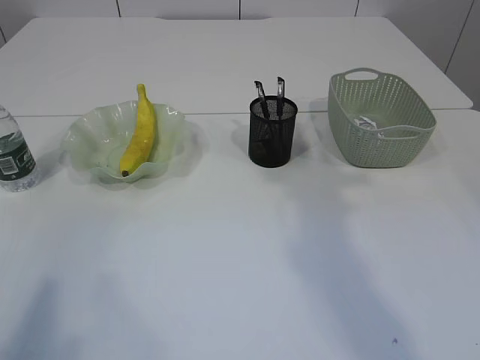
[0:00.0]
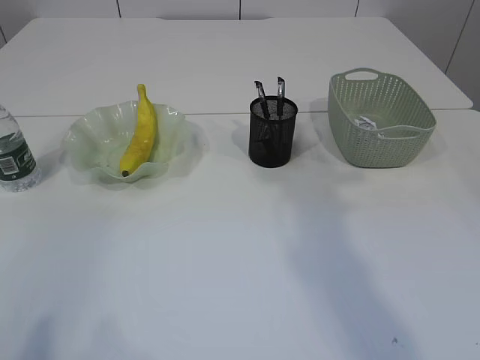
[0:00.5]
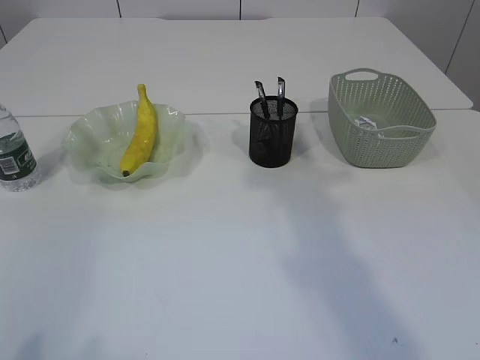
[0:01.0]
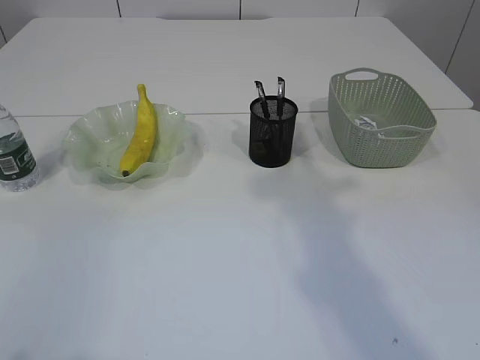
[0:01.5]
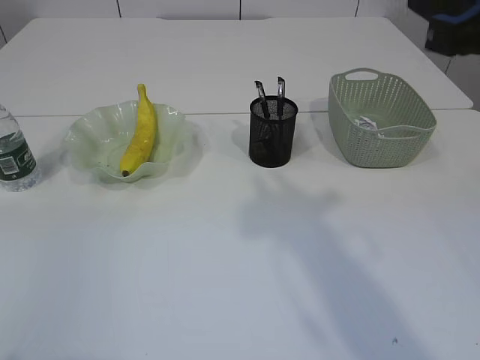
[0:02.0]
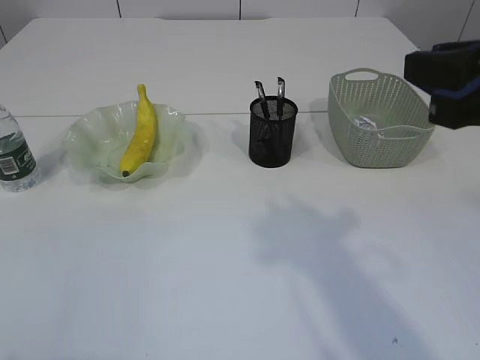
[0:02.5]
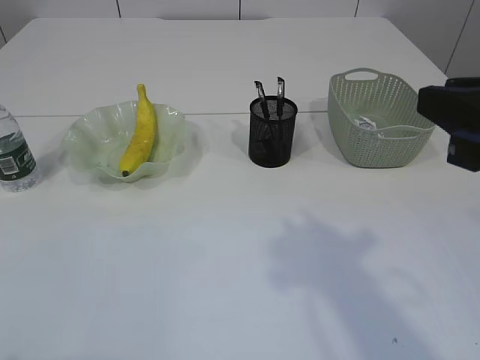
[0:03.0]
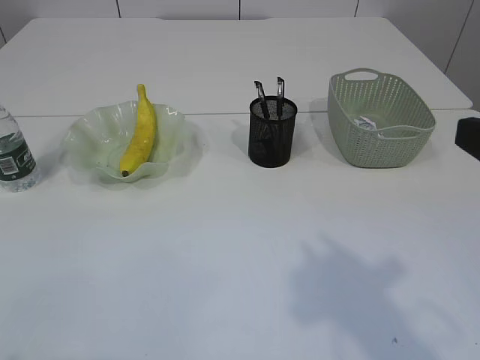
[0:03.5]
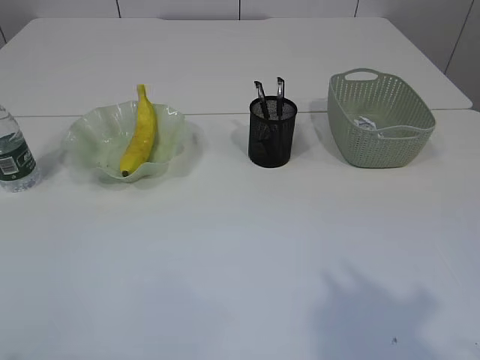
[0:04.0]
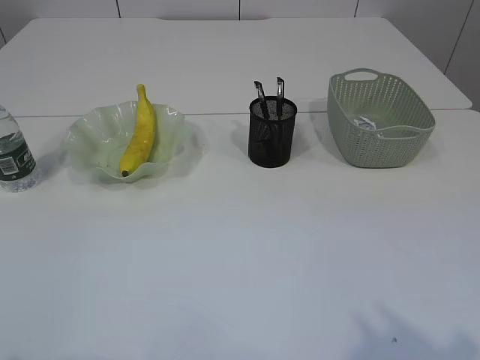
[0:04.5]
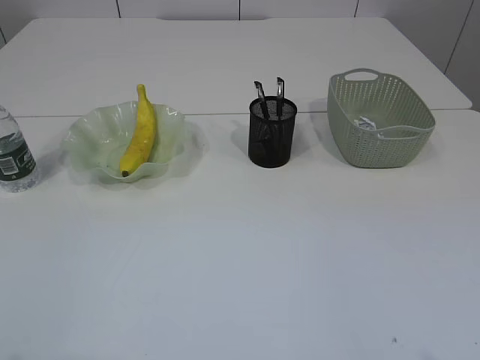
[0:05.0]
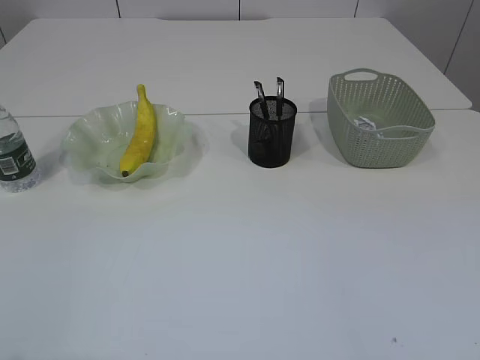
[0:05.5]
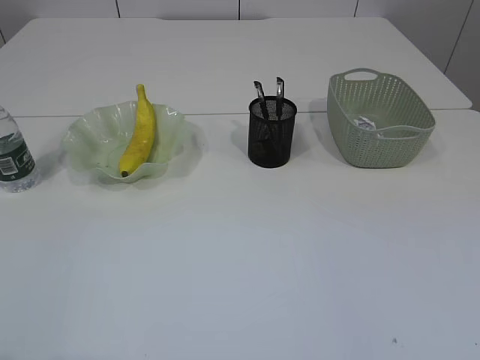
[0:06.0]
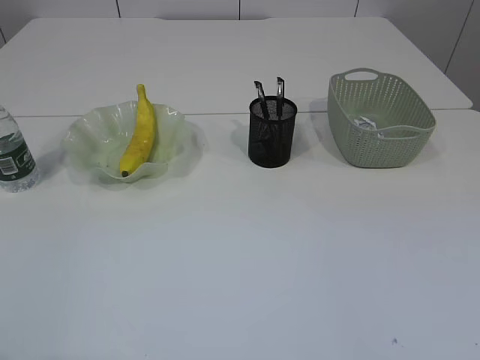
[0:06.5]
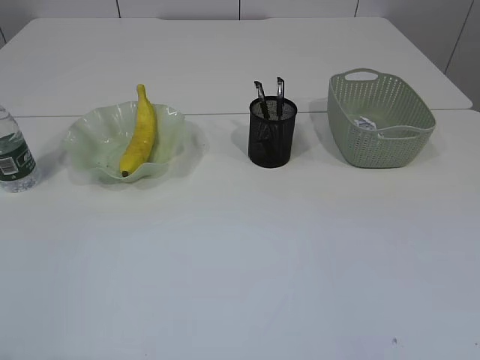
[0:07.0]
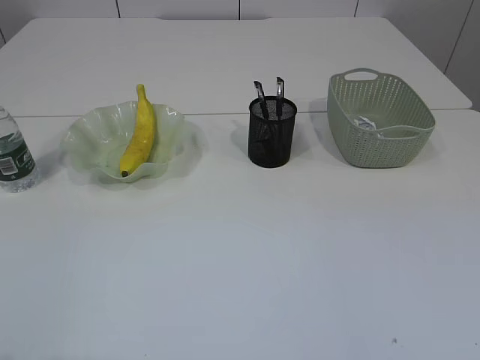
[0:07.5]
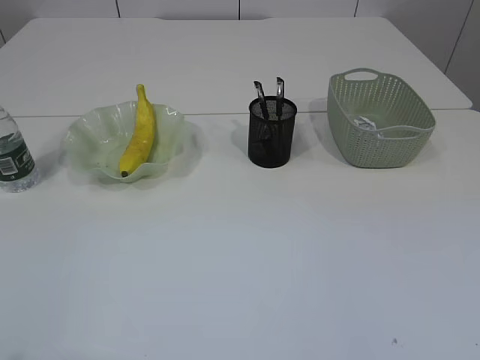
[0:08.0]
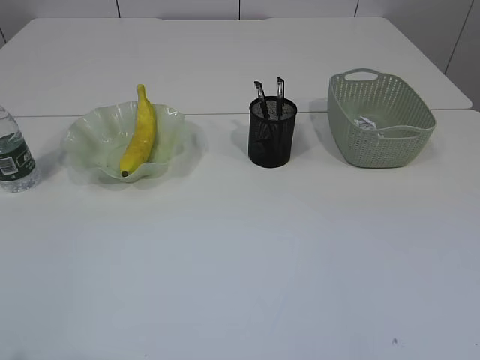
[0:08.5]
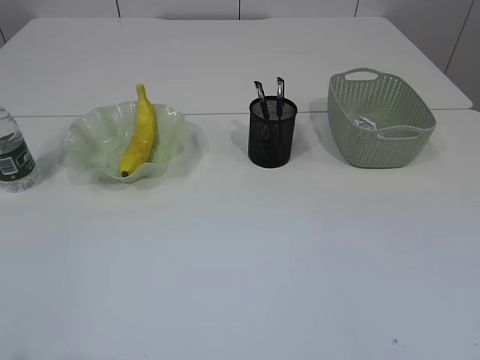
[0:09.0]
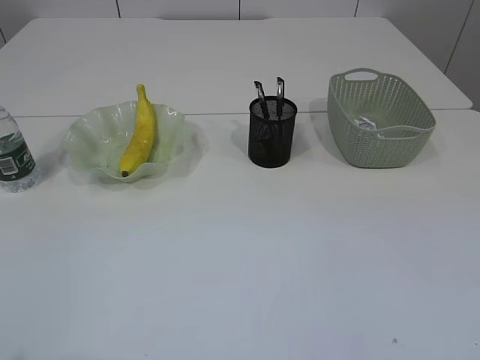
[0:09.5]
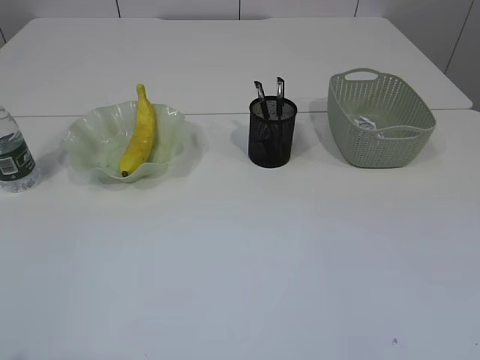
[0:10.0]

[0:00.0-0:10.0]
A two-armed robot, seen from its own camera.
0:00.0 to 0:02.0: The right gripper travels backward by approximately 5 cm; the left gripper shifts roughly 5 cm downward.
0:02.0 to 0:04.0: The right gripper moves backward, some 10 cm.
0:04.0 to 0:06.0: The right gripper goes about 10 cm backward.
0:08.0 to 0:10.0: Neither gripper changes place.

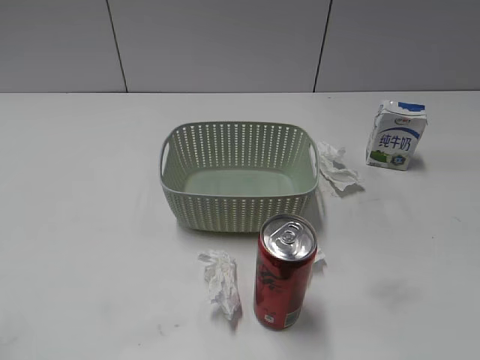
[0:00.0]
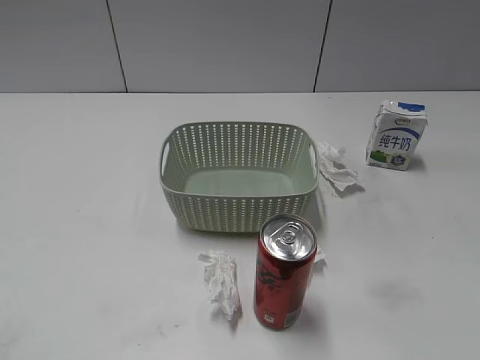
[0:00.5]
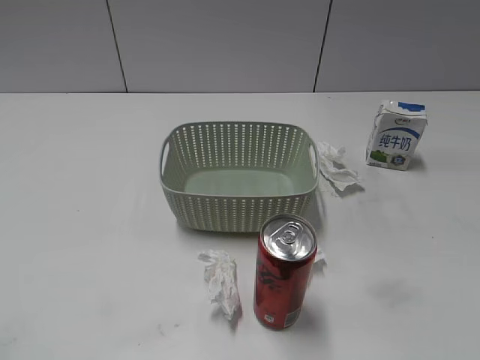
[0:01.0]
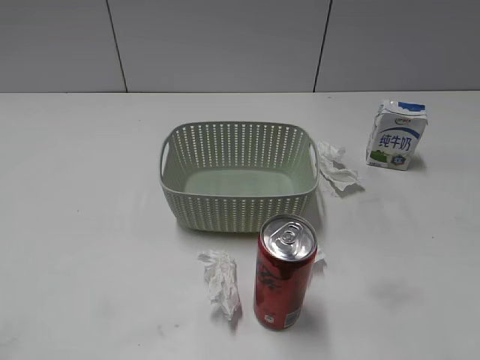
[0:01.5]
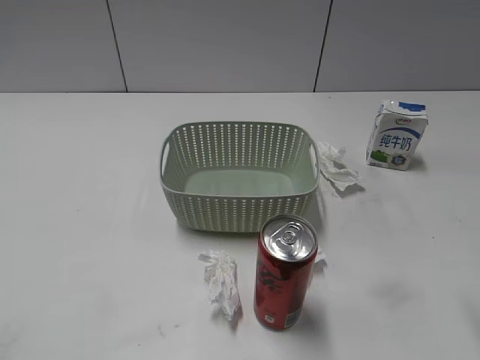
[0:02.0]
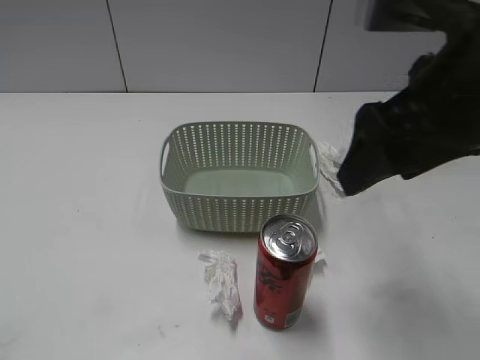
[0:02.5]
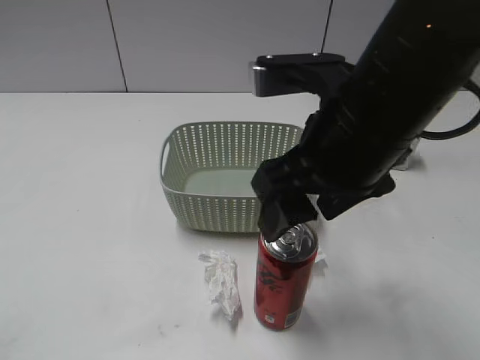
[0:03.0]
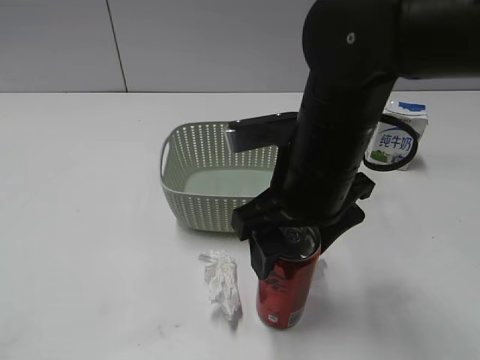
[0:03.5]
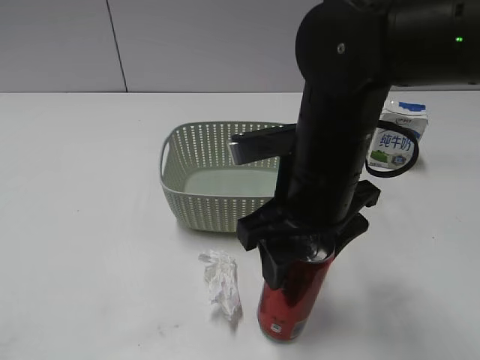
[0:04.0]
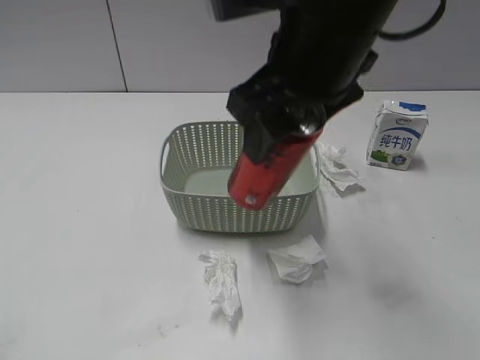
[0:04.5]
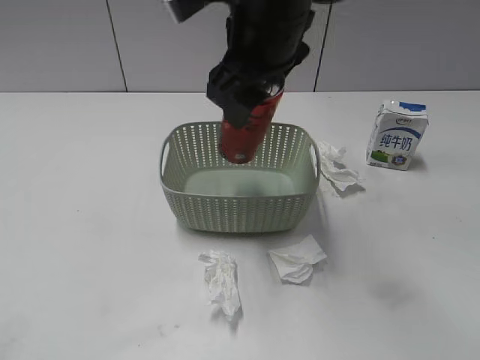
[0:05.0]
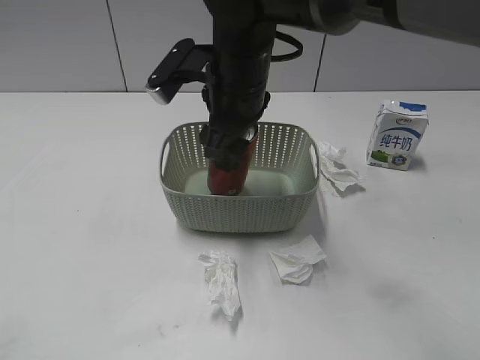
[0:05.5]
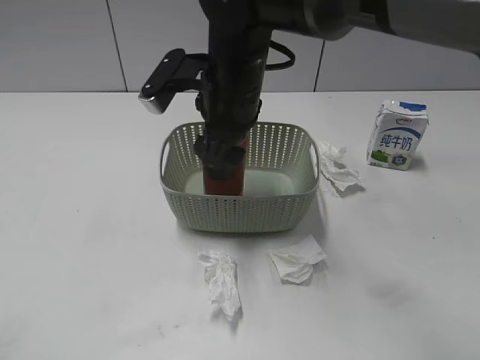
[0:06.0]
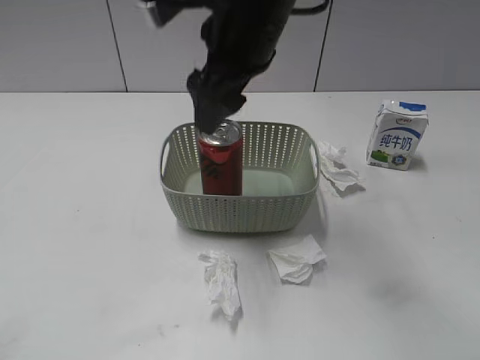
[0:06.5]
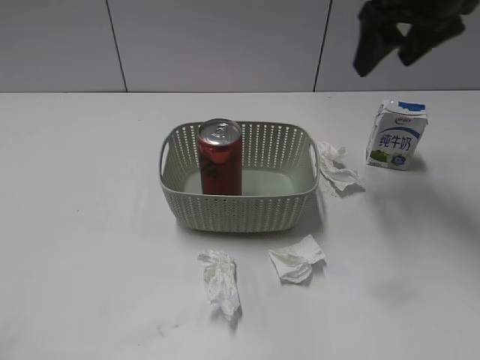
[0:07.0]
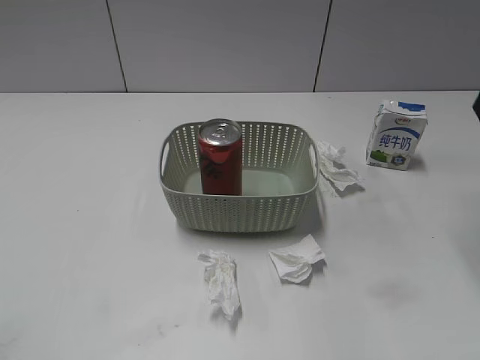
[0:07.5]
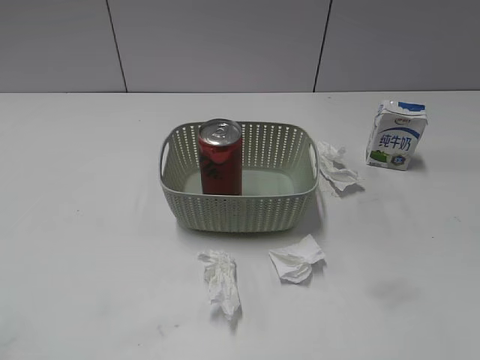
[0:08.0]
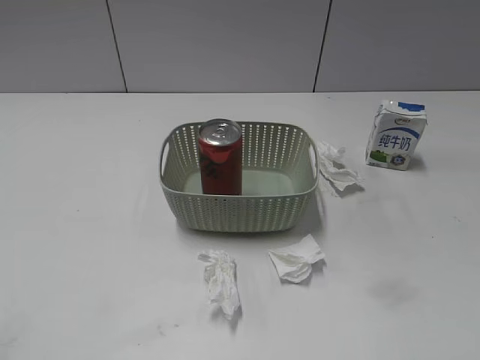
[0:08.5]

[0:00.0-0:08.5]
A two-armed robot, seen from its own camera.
Step, 0:02.5 to 0:03.5: Grasp the cola can with right gripper.
Step, 0:04.0 to 0:06.5: Place the cola can in the basket with right gripper.
0:02.0 to 0:04.0: The right gripper shifts about 25 cm to the left and downward, and closes up.
0:04.0 to 0:06.5: The right gripper heads forward, upward and to the left, covering about 15 cm, and opens.
0:06.5 to 0:08.5: The right gripper heads to the right and backward, covering approximately 40 cm, and closes.

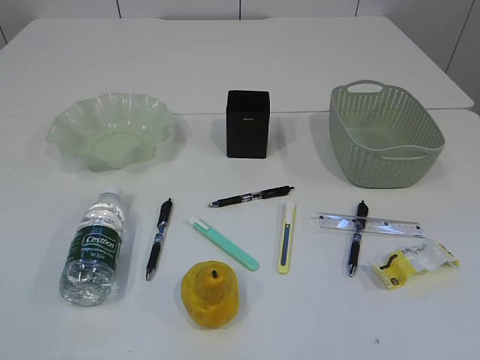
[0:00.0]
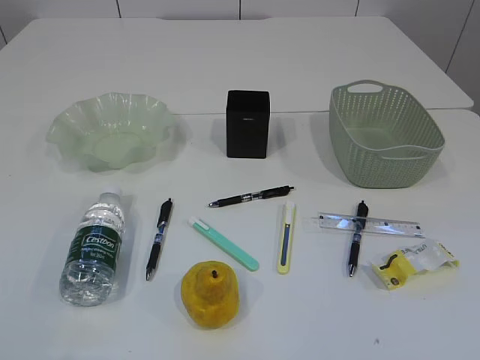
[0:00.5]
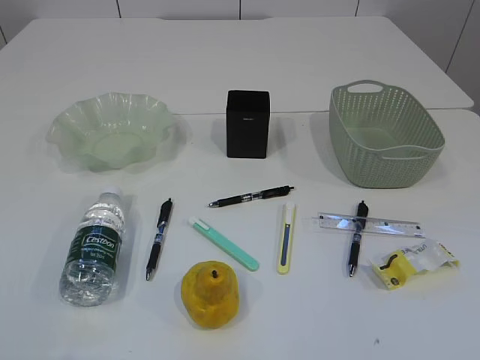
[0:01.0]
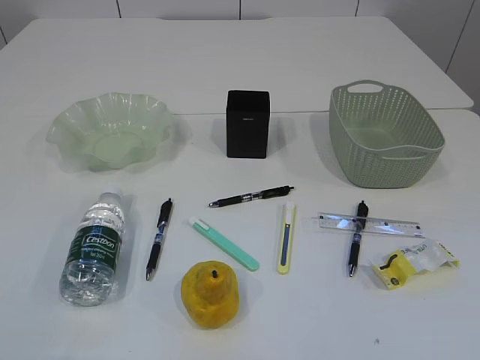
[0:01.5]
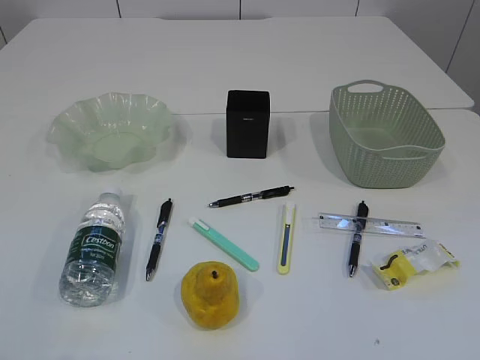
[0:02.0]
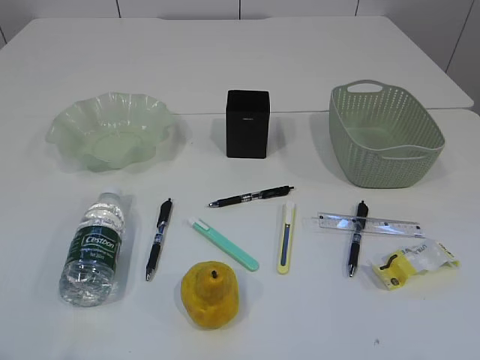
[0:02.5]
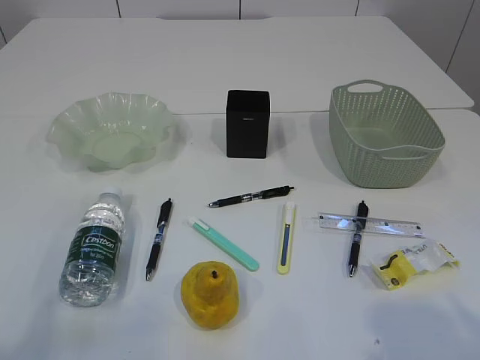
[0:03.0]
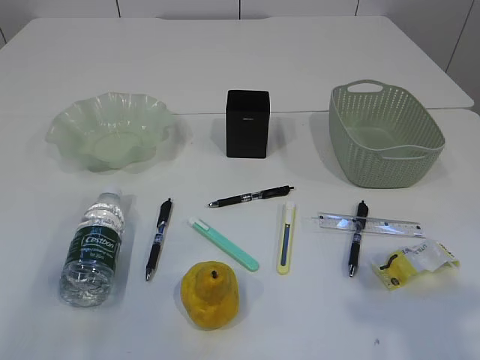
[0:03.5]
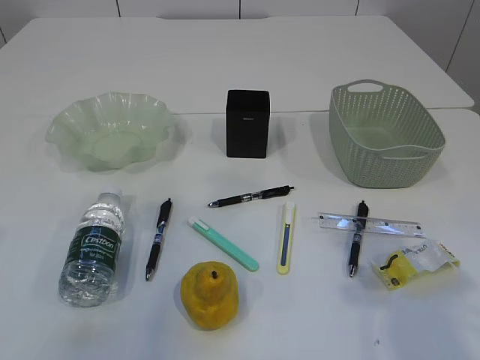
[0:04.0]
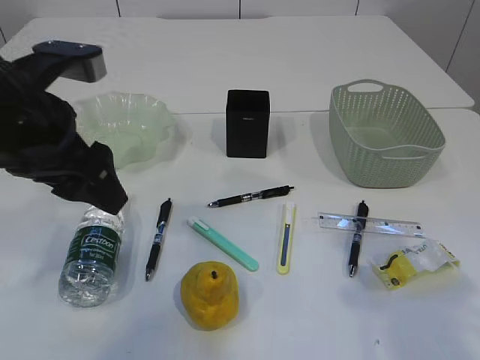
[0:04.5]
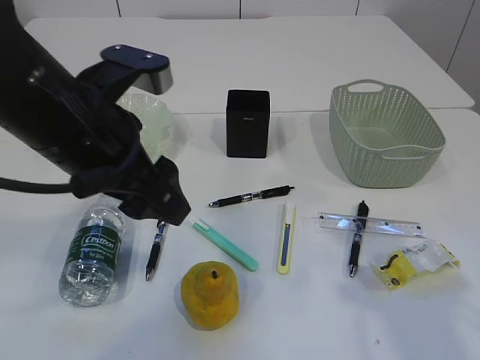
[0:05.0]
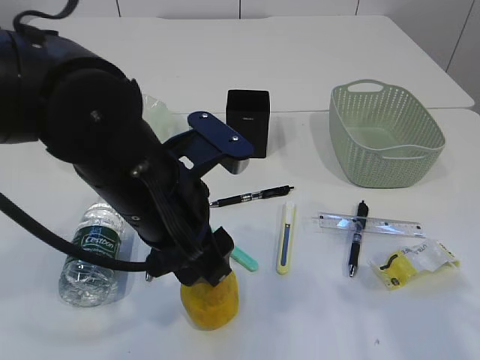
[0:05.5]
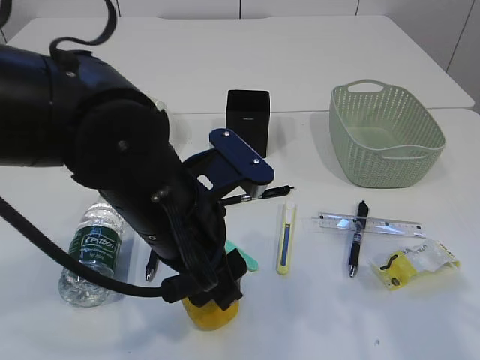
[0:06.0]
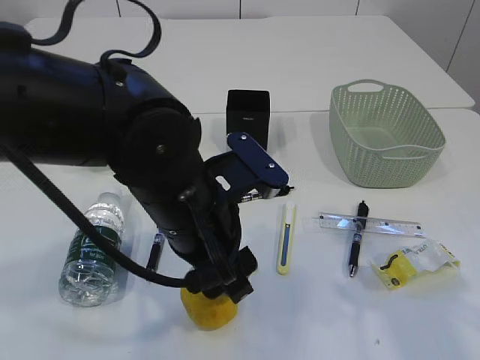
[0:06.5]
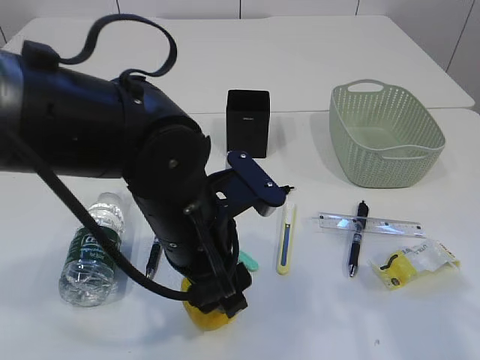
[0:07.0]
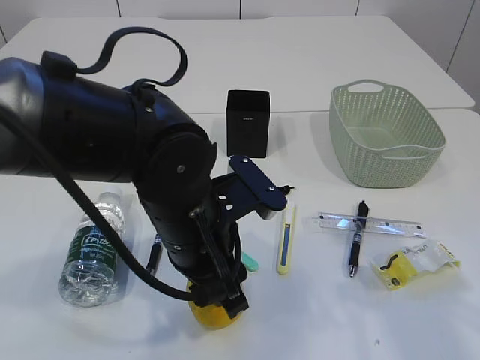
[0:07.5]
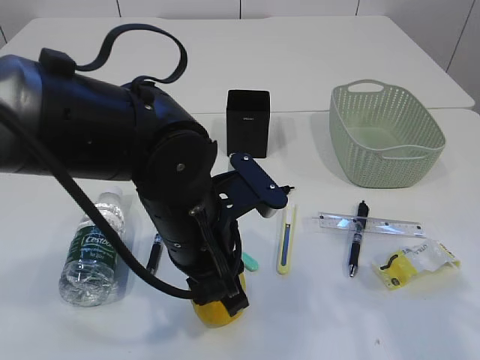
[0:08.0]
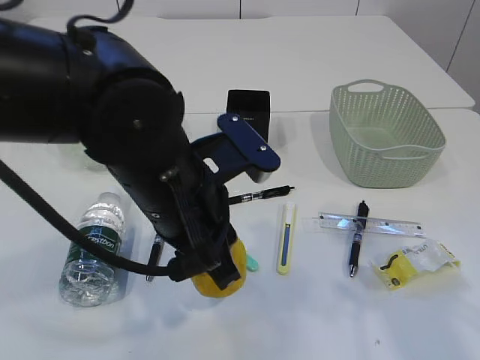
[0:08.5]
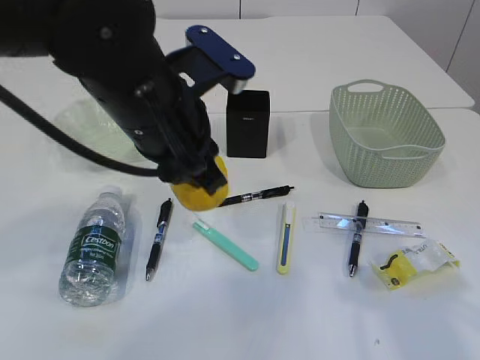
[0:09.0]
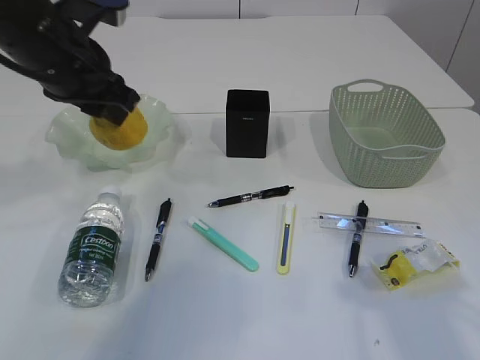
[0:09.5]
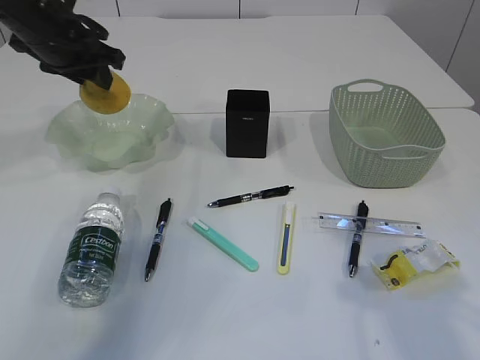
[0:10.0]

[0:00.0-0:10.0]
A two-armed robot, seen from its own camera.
0:02.0 to 0:04.0: The right gripper is displaced forward by approximately 15 cm, while the left gripper travels forward and upward by some 20 cm.
0:04.0 to 0:06.0: The left gripper moves to the right and downward, some 25 cm.
0:06.0 to 0:08.0: The left gripper closes its fingers.
0:08.0 to 0:10.0: The left gripper goes about 30 cm forward, to the left and upward.
